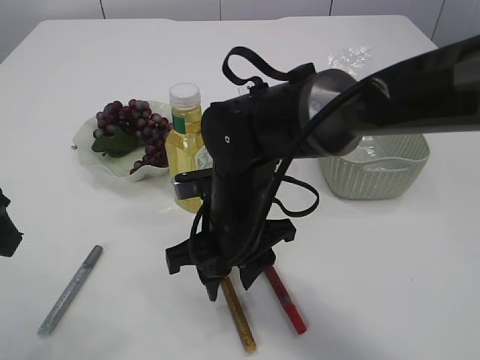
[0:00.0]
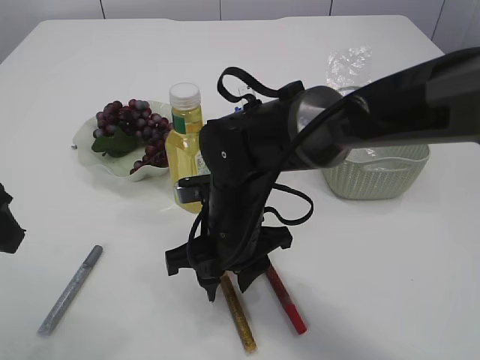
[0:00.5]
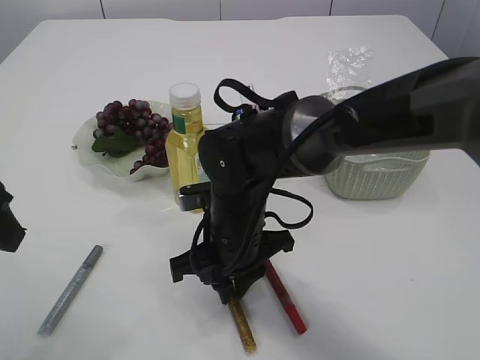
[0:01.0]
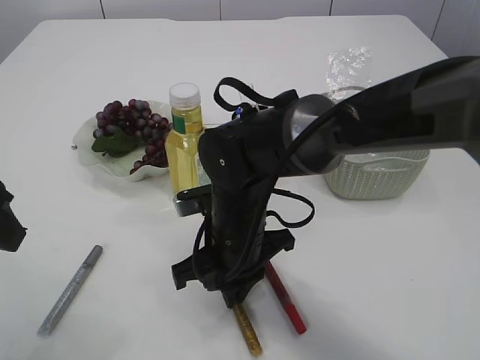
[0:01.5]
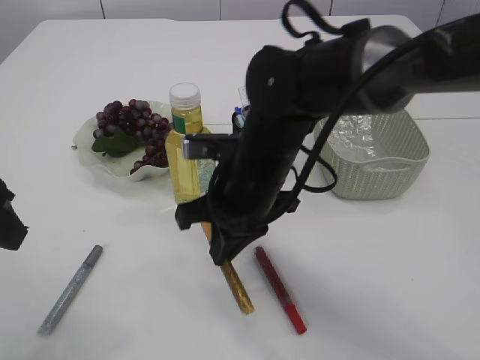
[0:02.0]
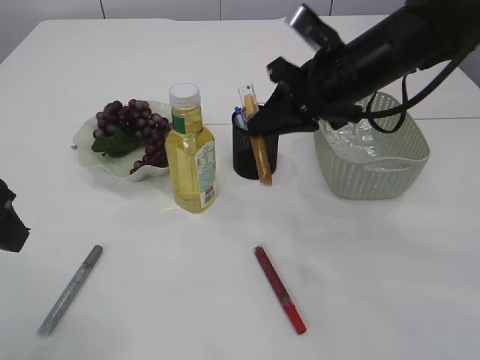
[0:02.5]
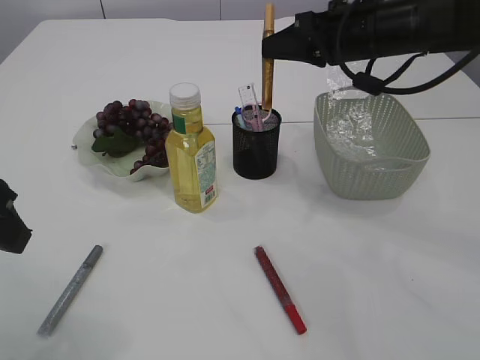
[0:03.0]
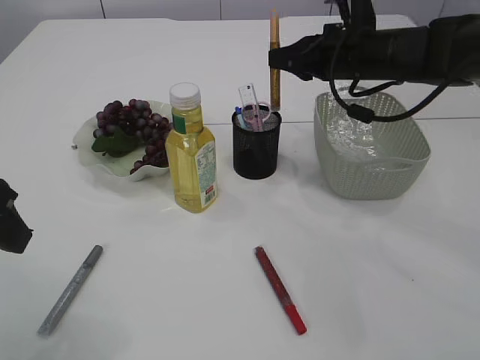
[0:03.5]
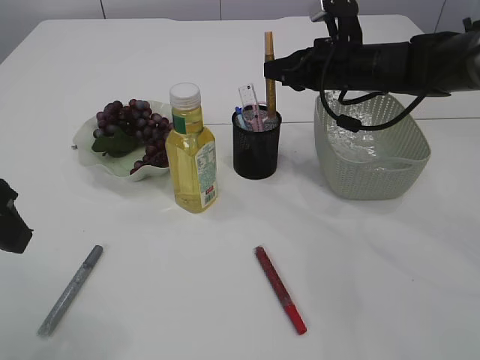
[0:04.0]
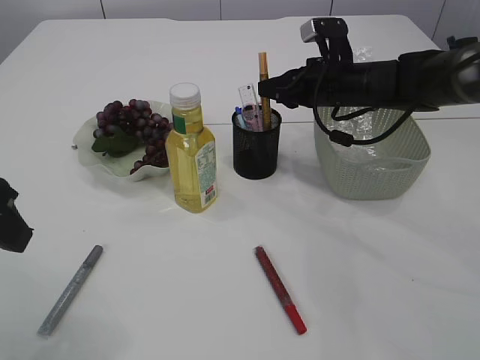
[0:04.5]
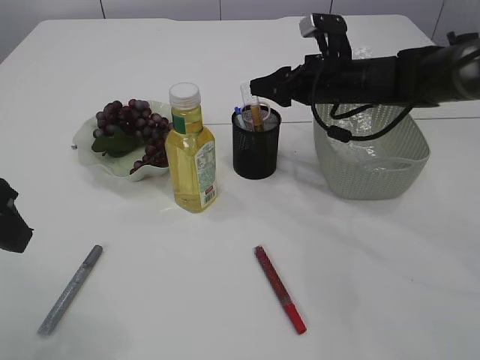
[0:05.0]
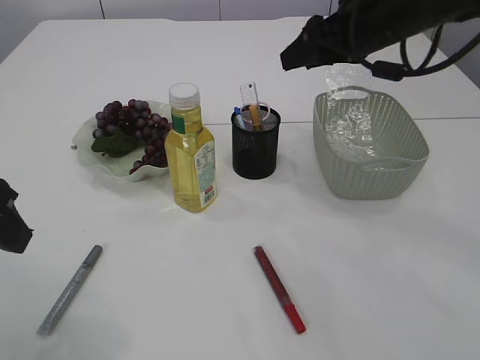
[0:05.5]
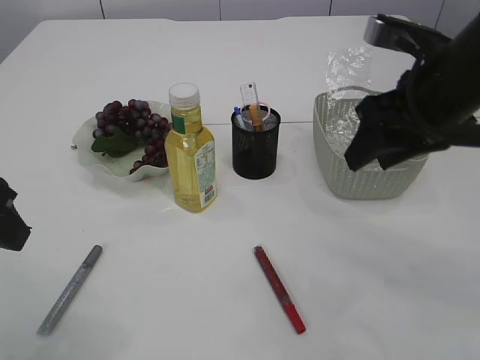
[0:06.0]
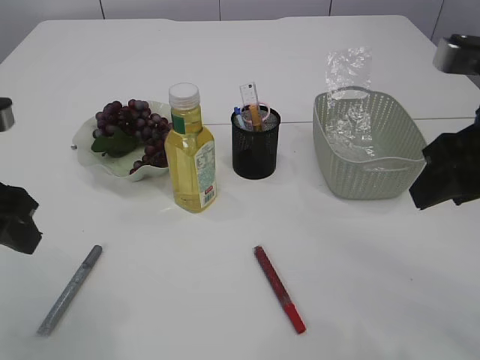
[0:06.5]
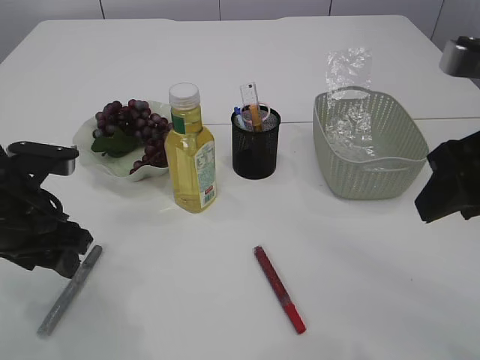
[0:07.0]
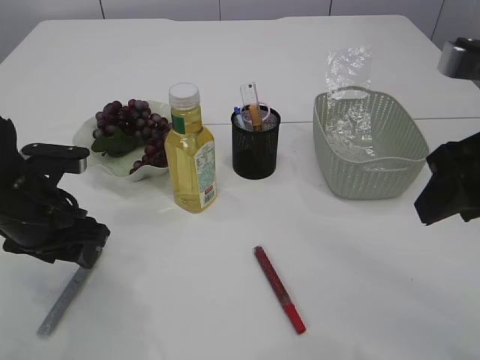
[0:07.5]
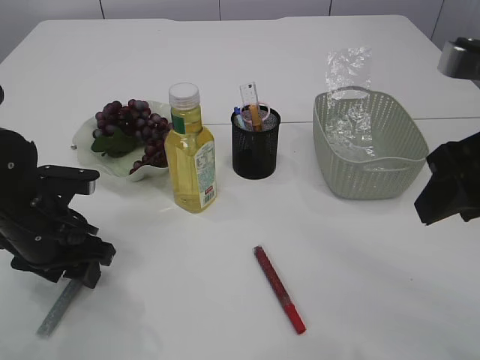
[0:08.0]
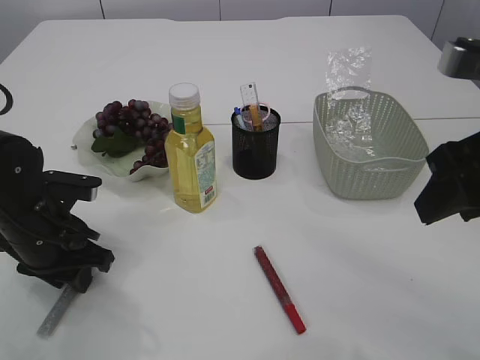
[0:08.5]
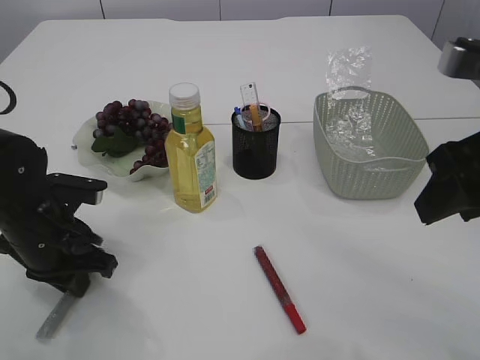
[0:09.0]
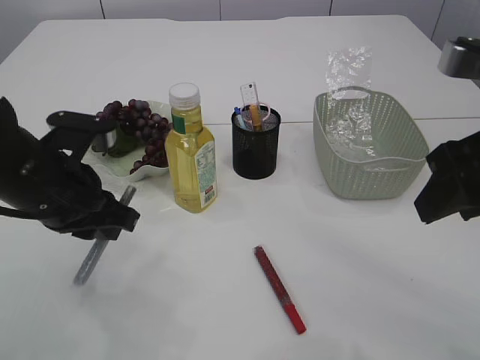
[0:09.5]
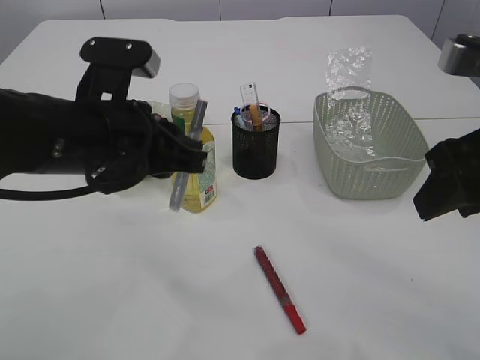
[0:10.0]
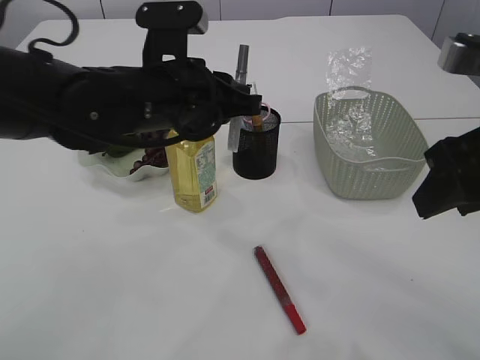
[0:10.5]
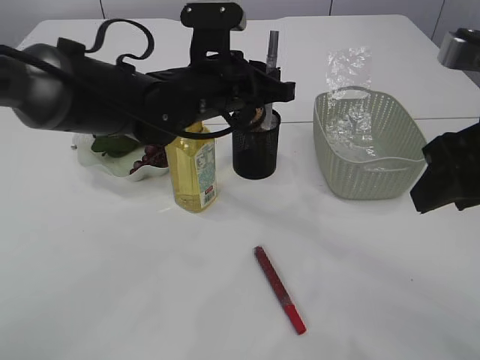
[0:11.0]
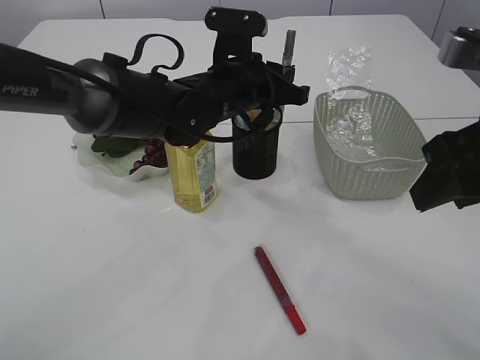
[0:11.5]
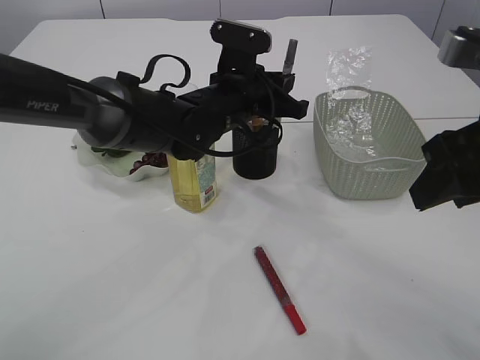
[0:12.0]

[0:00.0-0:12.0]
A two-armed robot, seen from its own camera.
Step, 0:00.0 to 0:02.0: pick up the yellow glue.
Step, 0:02.5 to 0:05.0: place the yellow glue into the pen holder.
Step, 0:05.5 to 0:09.5: pick up the silver glue.
0:00.0 to 0:02.0: The right gripper closes.
0:02.0 to 0:04.0: The right gripper shifts approximately 20 cm forward and to the right.
0:04.0 to 0:06.0: The right gripper goes about 15 cm backward and upward, and opens up.
0:06.0 to 0:08.0: The right gripper moves backward, about 10 cm; the left gripper is displaced downward and forward by about 15 cm.
0:08.0 to 0:10.0: The left gripper travels upward and to the right by approximately 15 cm, and closes.
0:10.0 to 0:12.0: The left gripper is displaced forward and to the right by some 20 cm.

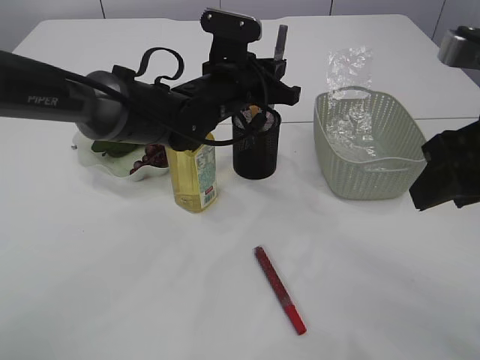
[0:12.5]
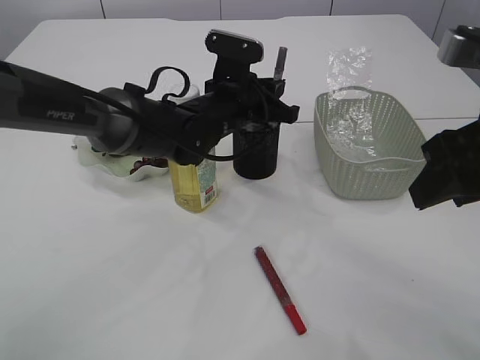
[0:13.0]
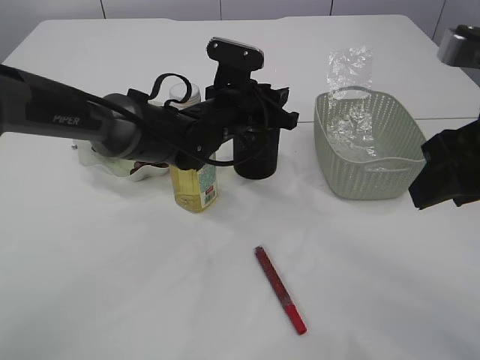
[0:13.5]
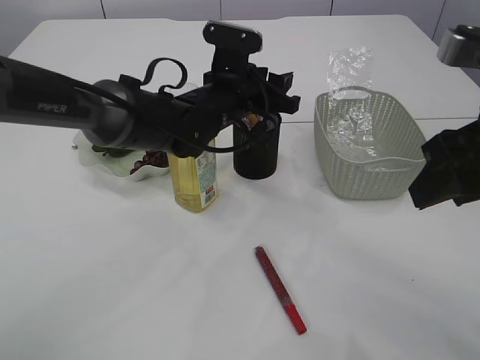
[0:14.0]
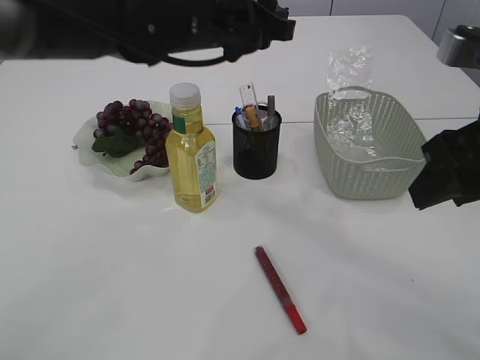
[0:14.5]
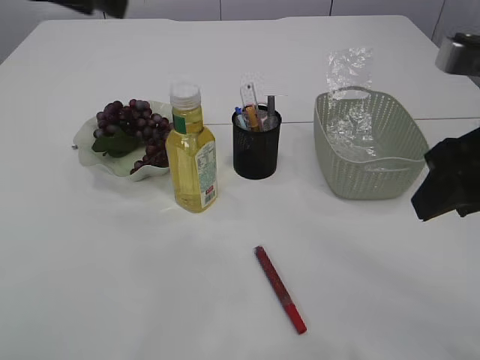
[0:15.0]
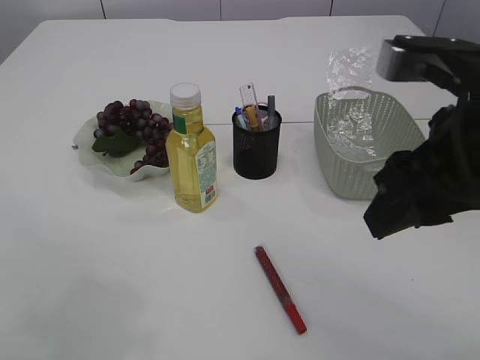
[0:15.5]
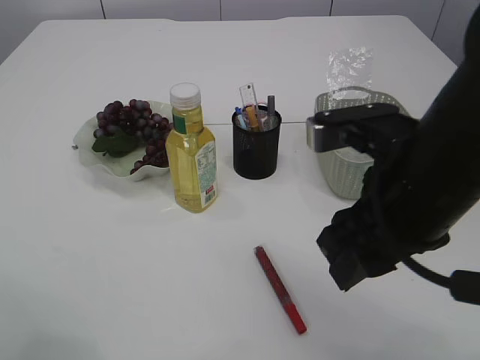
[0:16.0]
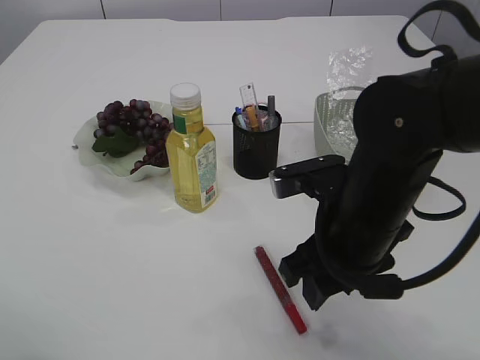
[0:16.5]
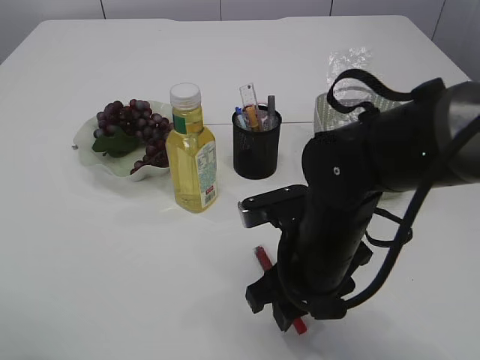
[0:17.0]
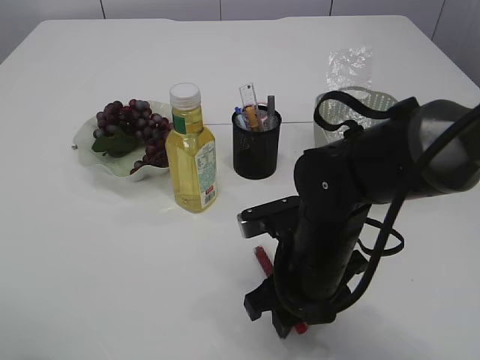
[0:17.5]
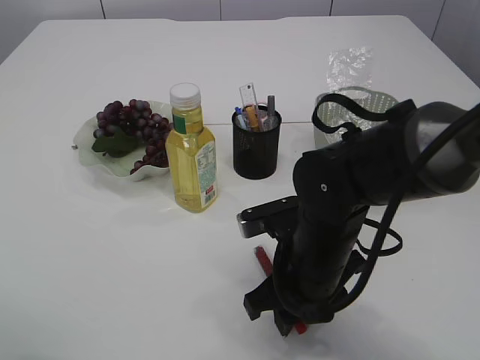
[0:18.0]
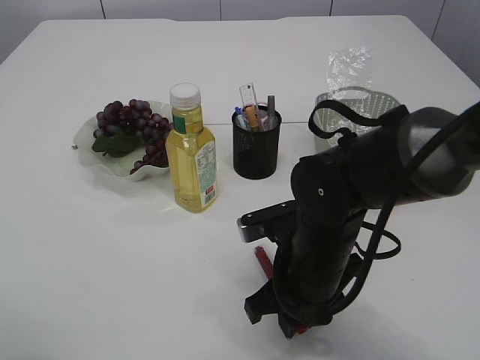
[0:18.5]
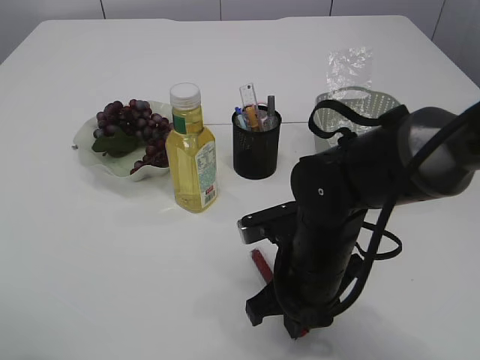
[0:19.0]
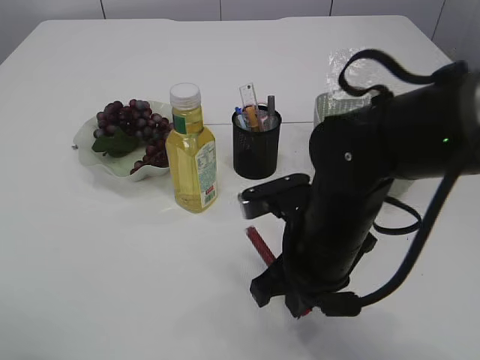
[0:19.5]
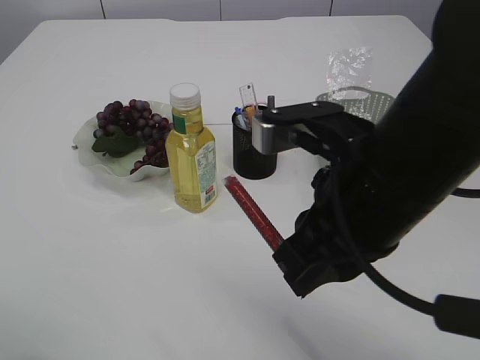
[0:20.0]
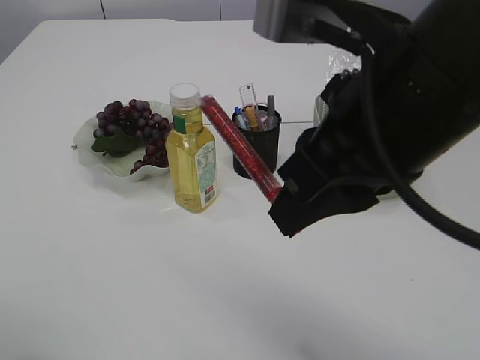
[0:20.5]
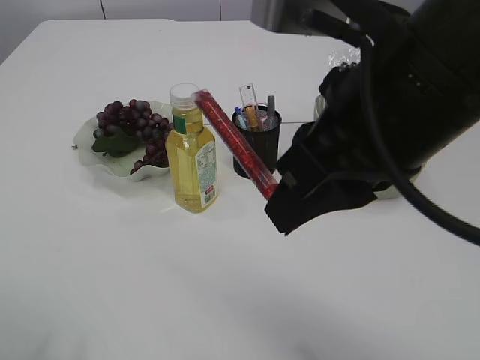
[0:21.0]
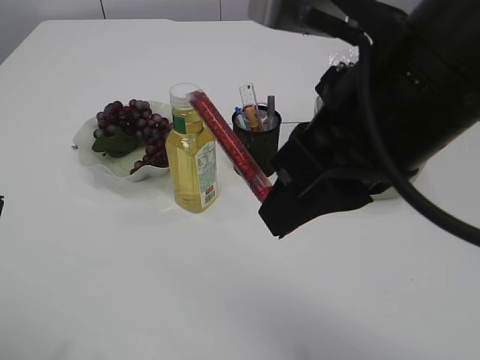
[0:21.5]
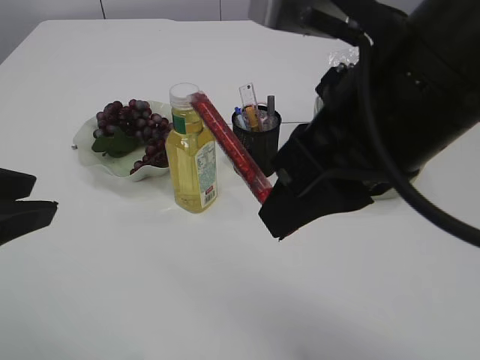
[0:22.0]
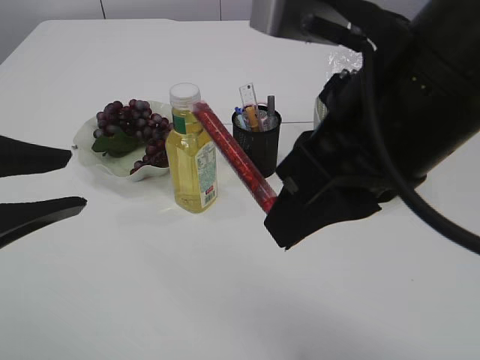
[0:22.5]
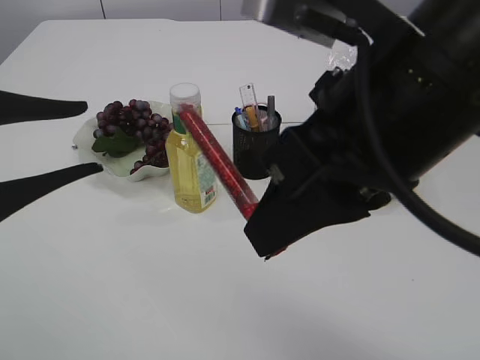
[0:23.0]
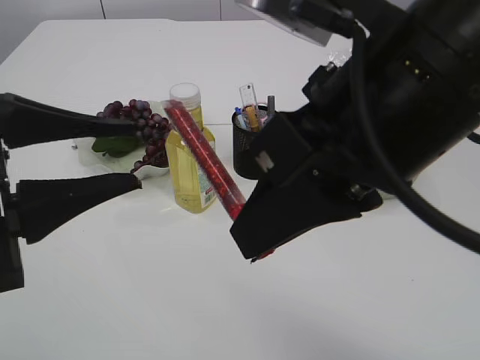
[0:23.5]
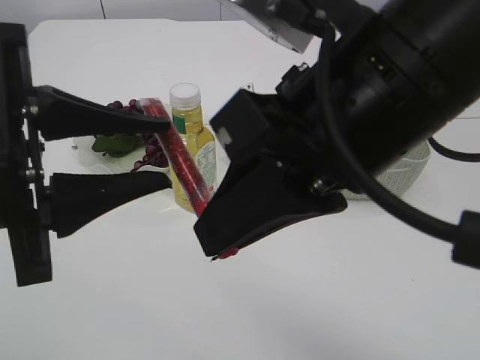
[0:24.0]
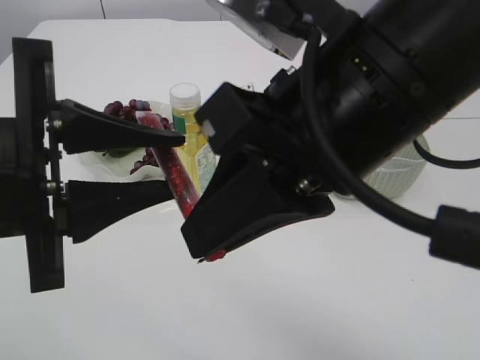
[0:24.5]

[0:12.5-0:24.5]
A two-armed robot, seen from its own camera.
Step, 0:14.5 to 0:19.5: pick up the red glue.
0:12.5 to 0:14.5: The left gripper is displaced upward by some 10 cm, and opens.
0:14.5 to 0:16.5: The right gripper travels downward and to the left by about 15 cm; the left gripper shifts roughly 30 cm to the left and backward.
0:16.5 to 0:18.5: The right gripper goes roughly 5 cm downward.
0:18.5 to 0:20.5: The right gripper travels upward by roughly 25 cm.
0:20.5 to 0:22.5: The left gripper goes about 5 cm to the right.
0:22.5 to 0:24.5: The left gripper moves to the right, some 5 cm.

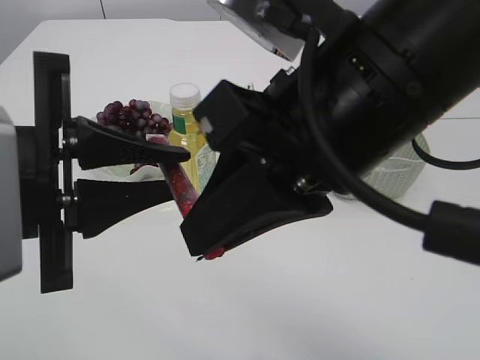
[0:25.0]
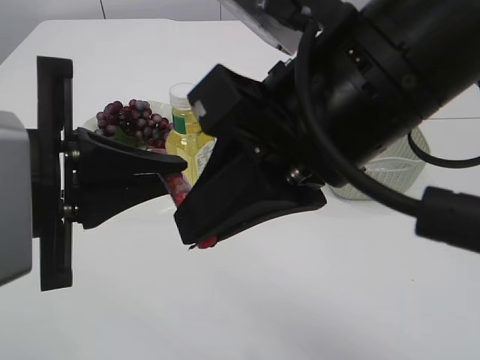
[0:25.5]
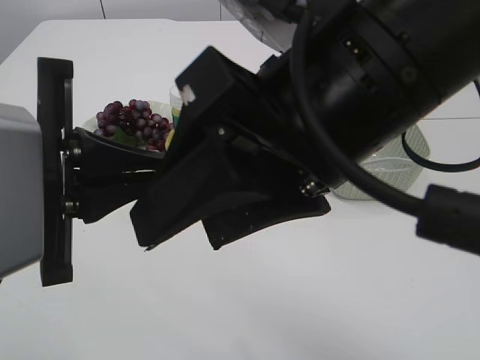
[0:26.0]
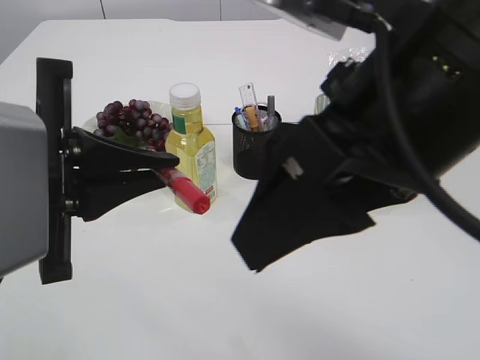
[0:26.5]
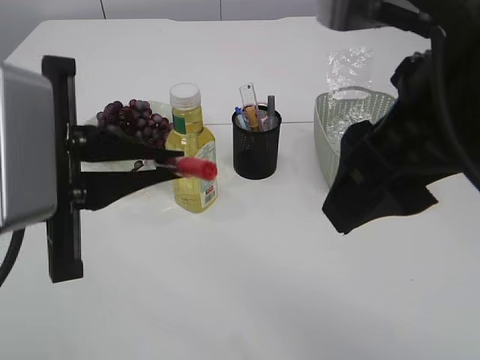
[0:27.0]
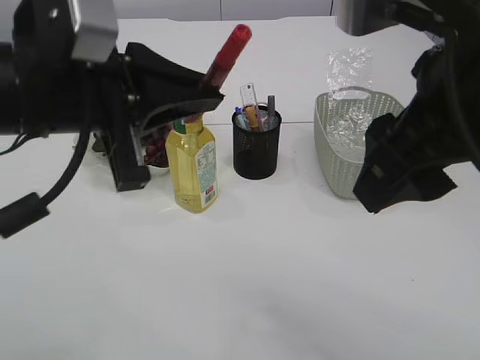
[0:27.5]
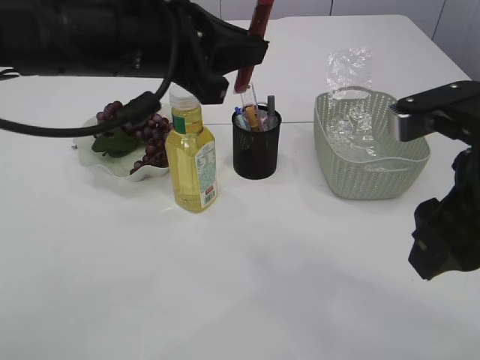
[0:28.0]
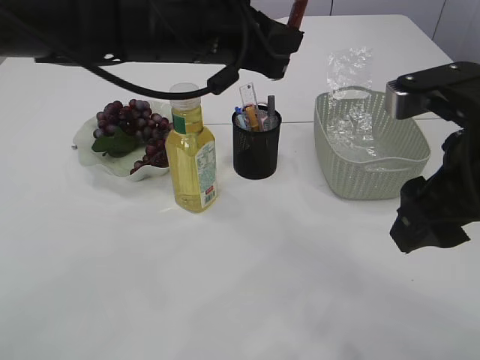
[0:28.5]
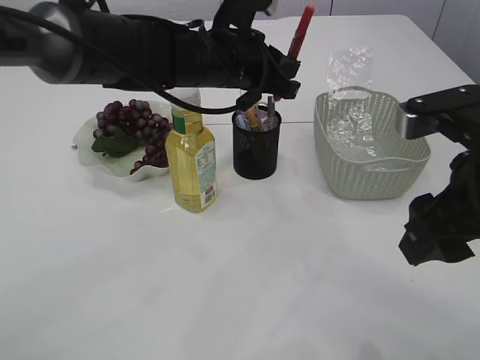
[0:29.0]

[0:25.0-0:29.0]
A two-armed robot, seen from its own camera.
Step, 0:25.0 to 0:27.0: Hand over the red glue.
0:25.0 to 0:27.0: The right gripper travels to the right by approximately 5 cm, and opens its fingers.
0:27.0 to 0:29.0: The left gripper goes about 25 cm forward and to the right. Meanwhile the right gripper travels downward and to the right by about 10 cm.
